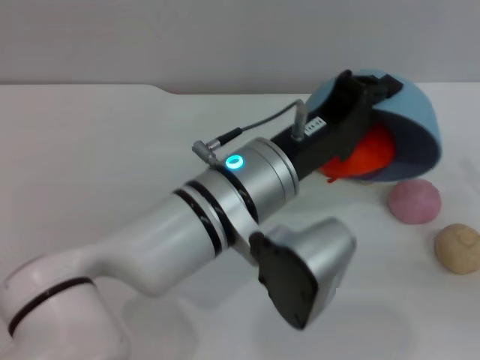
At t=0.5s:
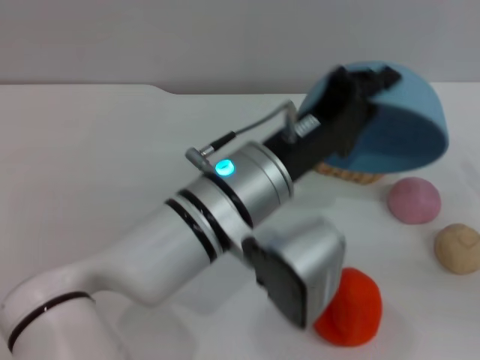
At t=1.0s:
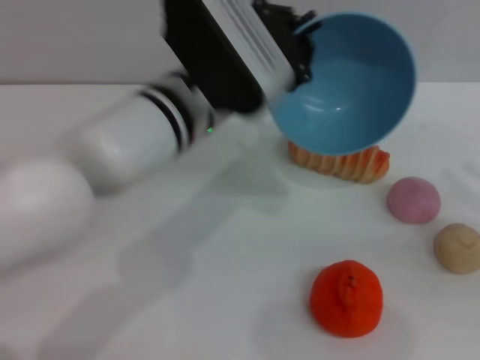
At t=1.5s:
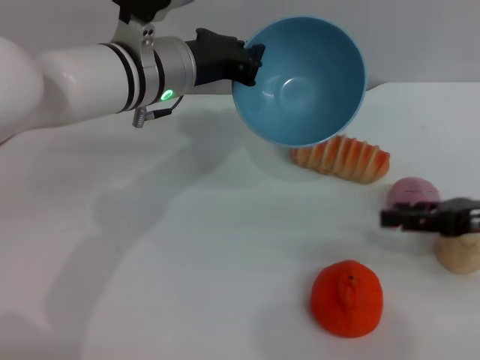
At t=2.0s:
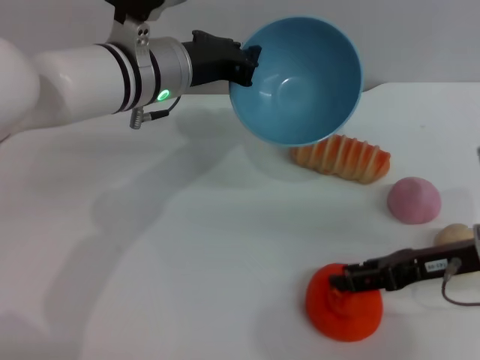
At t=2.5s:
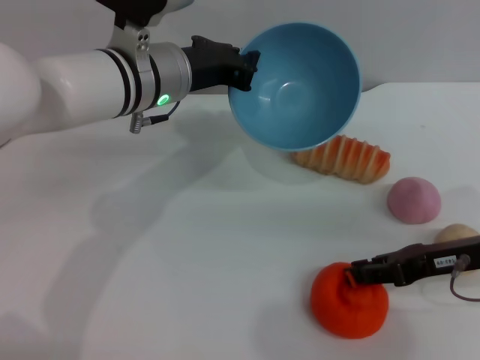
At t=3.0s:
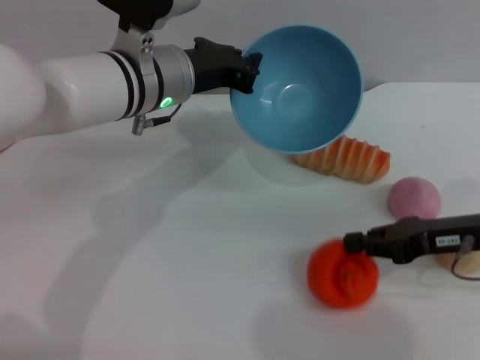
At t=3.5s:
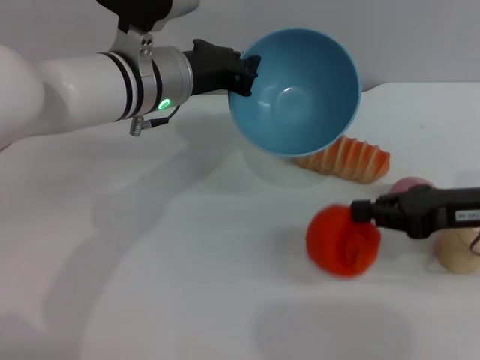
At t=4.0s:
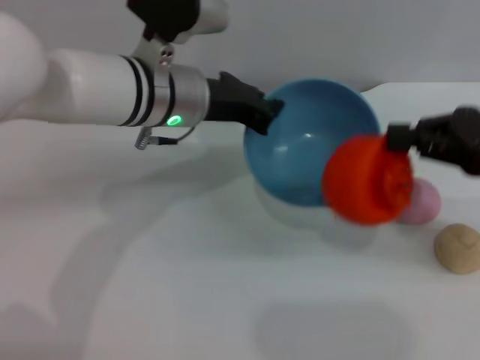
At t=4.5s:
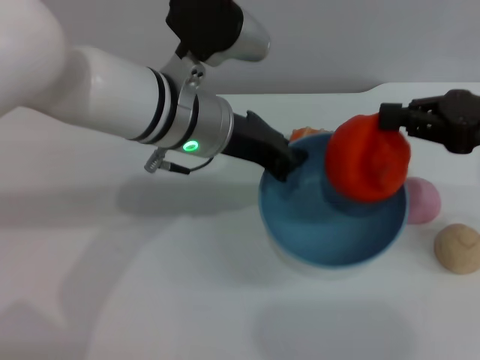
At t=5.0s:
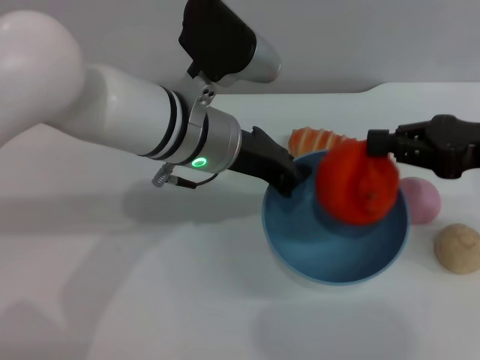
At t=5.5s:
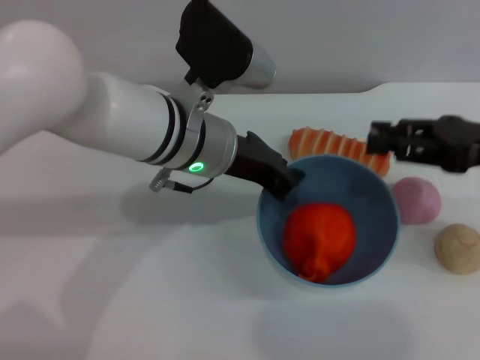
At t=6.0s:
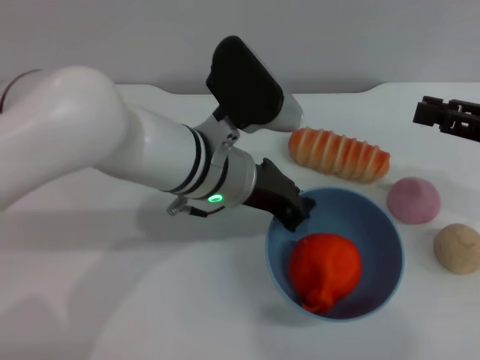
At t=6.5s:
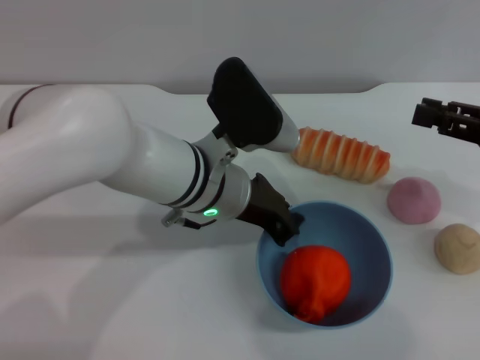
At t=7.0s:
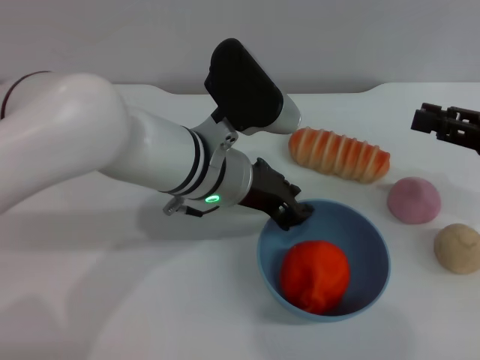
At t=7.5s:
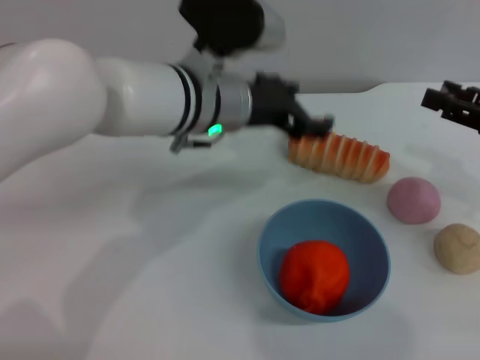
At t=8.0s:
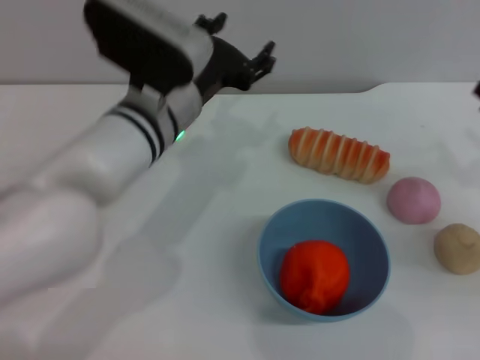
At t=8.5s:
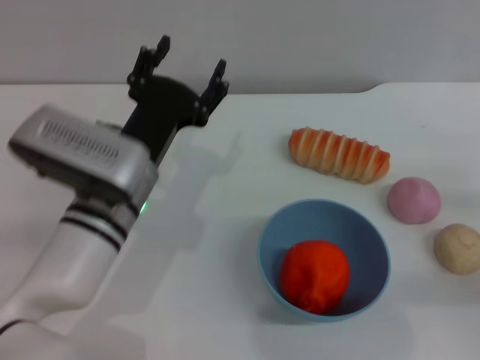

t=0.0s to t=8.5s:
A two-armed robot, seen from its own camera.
Task of the whole recording: put the orange into the blue bowl and pour it out repeatedly.
Step, t=1.0s to t=3.5s: Pick up the orange with the right gripper.
Step, t=4.0s to t=5.0s: Place the orange into the bowl.
Step, t=5.5s to t=7.0s: Place the bowl on the table.
t=0.0s to t=2.0s: The right gripper goes approximately 10 cm to the left. Meanwhile the left gripper shifts about 15 cm forward and to the left.
t=2.0s to t=4.0s: The right gripper shifts roughly 10 cm upward, and closes.
t=4.0s to t=6.5s: The right gripper opens up. The left gripper is displaced backward by some 5 cm.
t=6.5s to t=8.5s: The left gripper travels to the left by approximately 5 cm, and opens up; the right gripper goes some 15 cm downward and backward.
